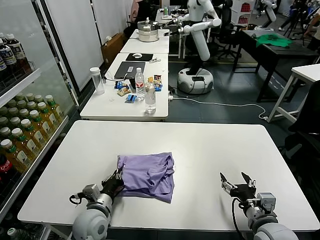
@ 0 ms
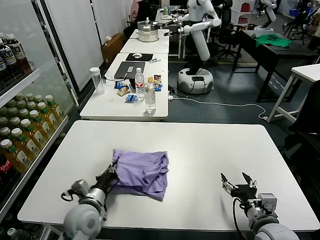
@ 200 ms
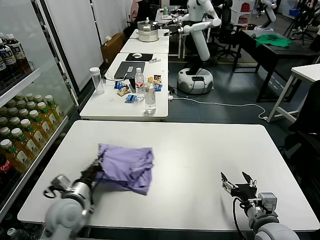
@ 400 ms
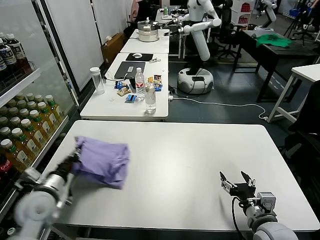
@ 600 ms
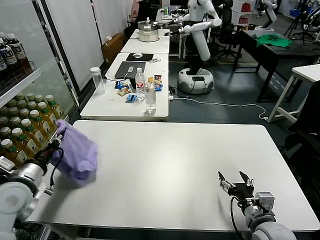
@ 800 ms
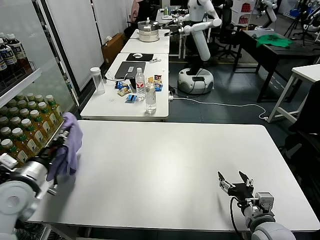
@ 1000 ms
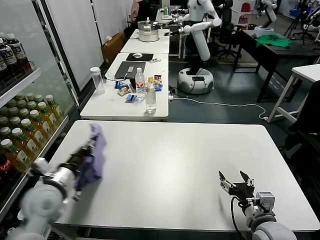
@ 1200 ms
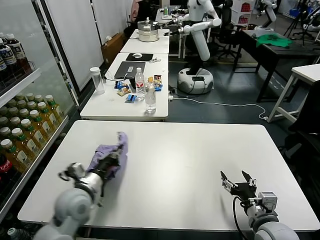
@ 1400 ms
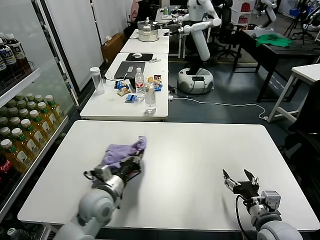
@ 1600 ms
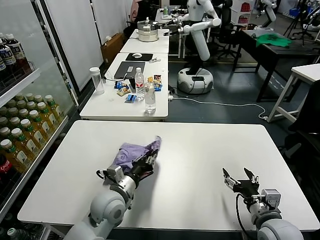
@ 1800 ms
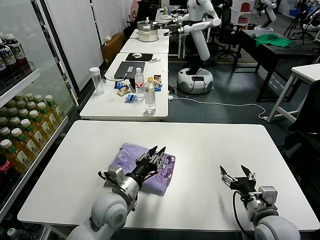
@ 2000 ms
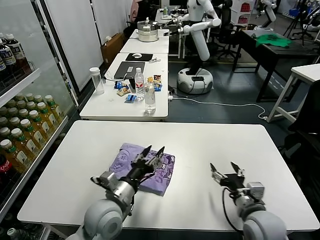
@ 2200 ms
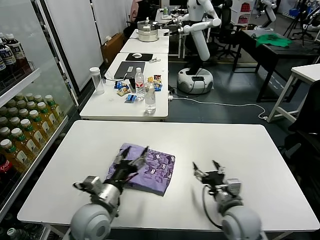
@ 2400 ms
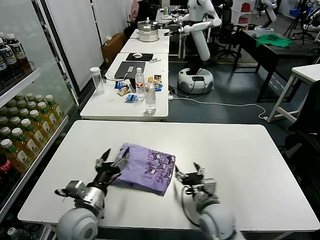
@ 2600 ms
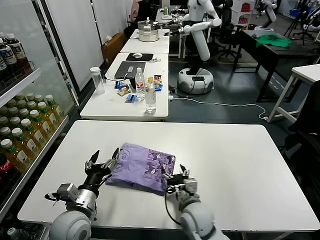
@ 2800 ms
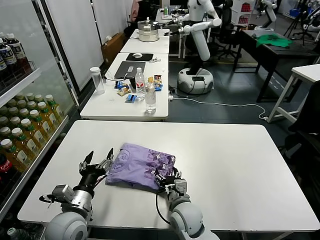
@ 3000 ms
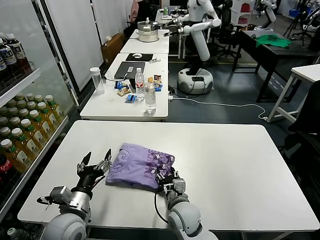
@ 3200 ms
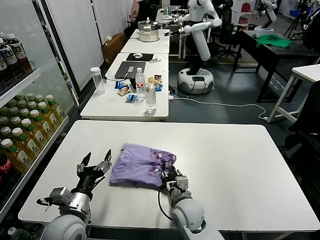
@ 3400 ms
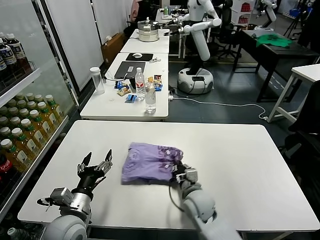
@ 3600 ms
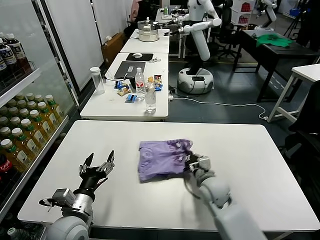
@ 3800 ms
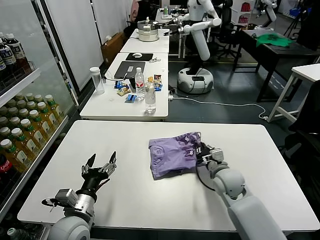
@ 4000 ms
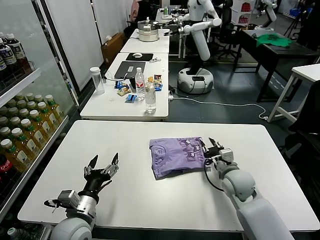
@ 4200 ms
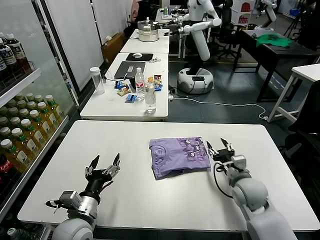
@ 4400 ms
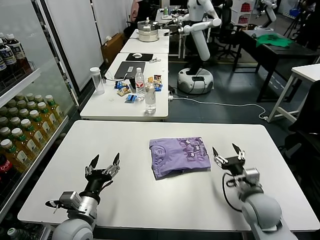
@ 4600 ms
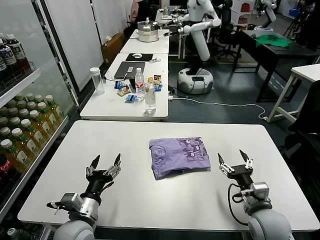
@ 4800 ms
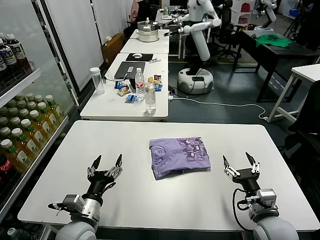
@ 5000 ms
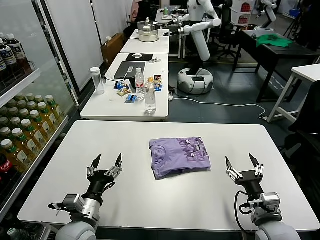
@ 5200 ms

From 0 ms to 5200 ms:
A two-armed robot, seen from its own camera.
Task of the whole recording: fold and organize the clothes.
Step, from 0 ms to 2200 ms: Flip the folded clothes over with left gripper.
Step, from 2400 ms to 4600 ms: Drag the clothes to the center of the table.
From 0 ms to 1800 ms: The left gripper moves upward, about 5 cm, and moves roughly 15 cm to the left and comes back.
From 1800 ms to 3400 ms: The right gripper heads to the left and forward, covering roughly 25 cm, and closes its fingers, while the left gripper goes about 10 cm to the left and backward, and opens.
From 3400 ms to 5200 ms: The right gripper travels to the right and backward by roughly 25 cm, and opens up.
